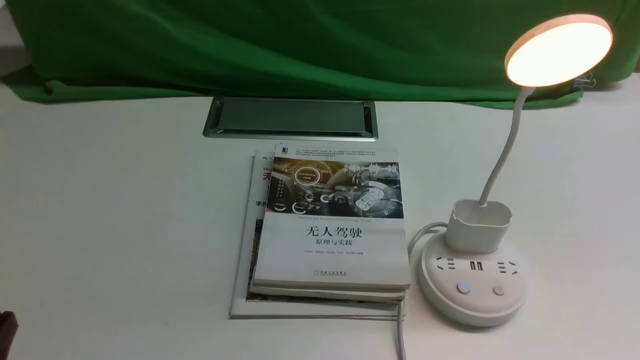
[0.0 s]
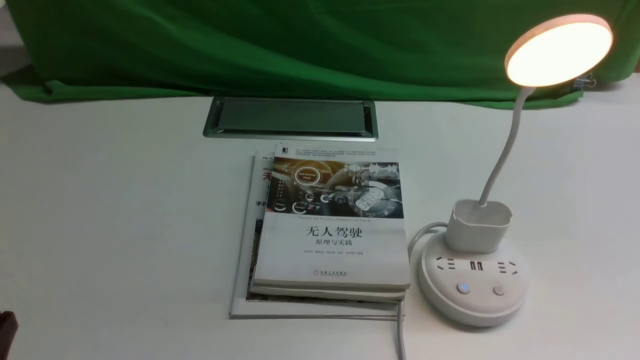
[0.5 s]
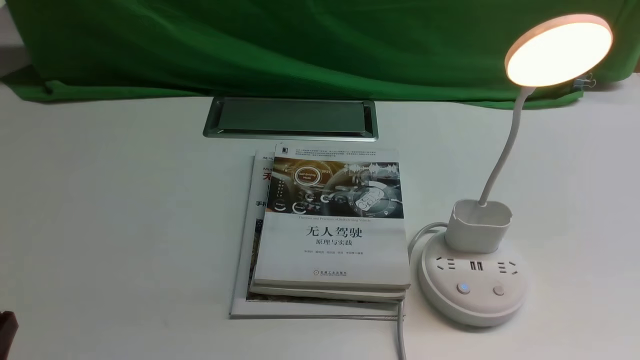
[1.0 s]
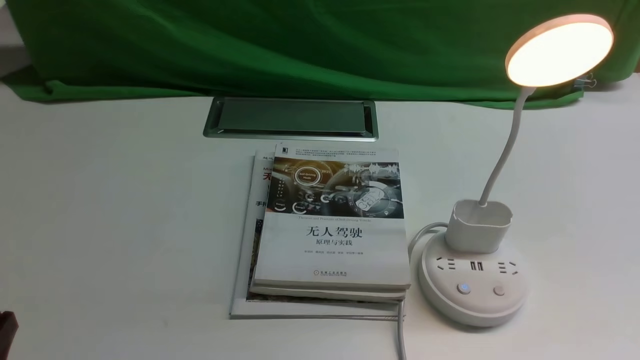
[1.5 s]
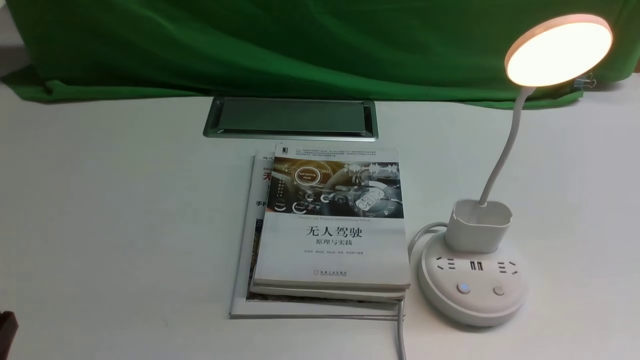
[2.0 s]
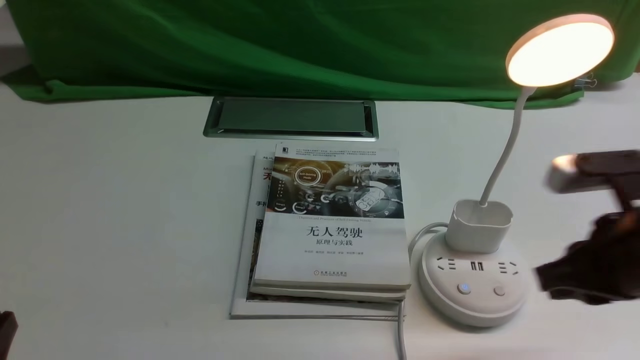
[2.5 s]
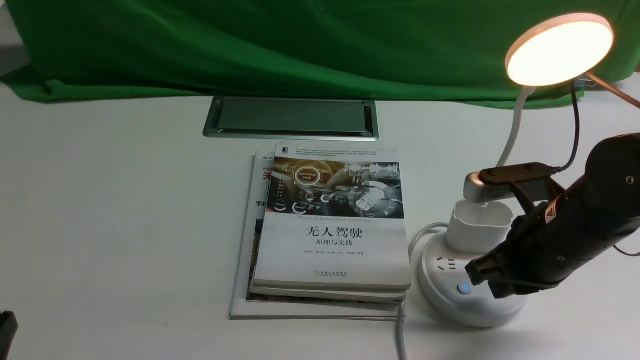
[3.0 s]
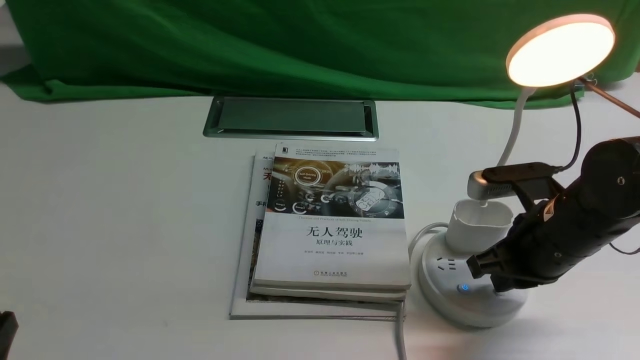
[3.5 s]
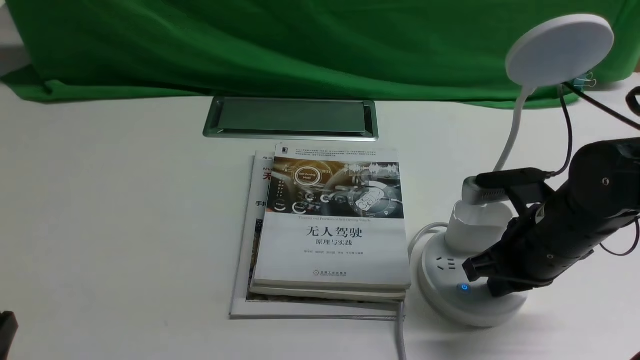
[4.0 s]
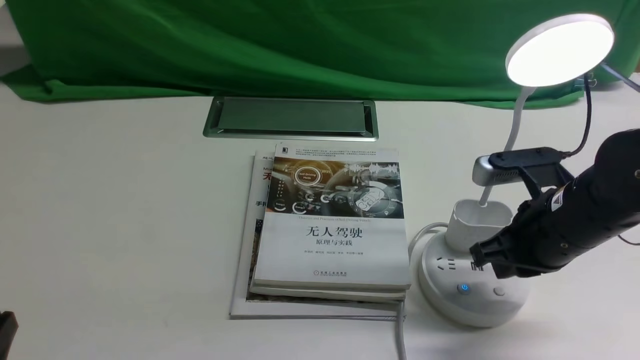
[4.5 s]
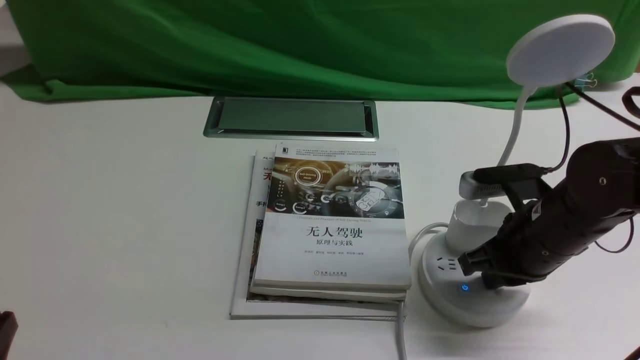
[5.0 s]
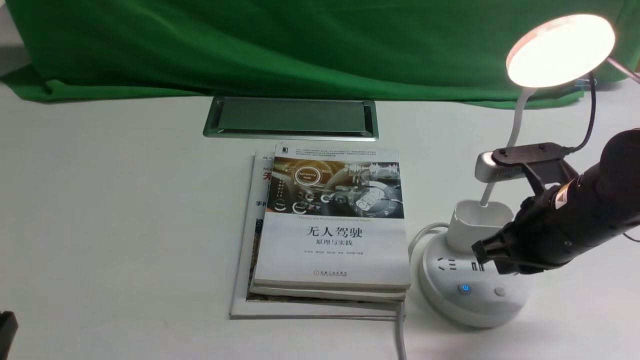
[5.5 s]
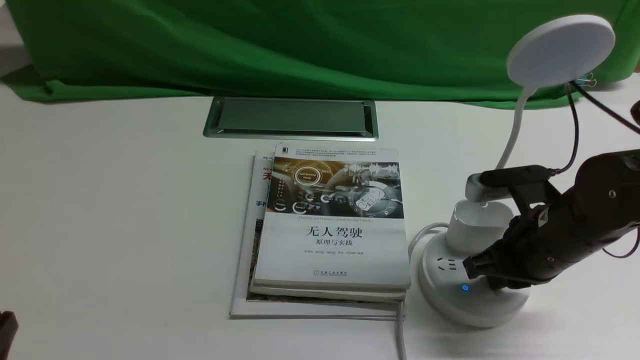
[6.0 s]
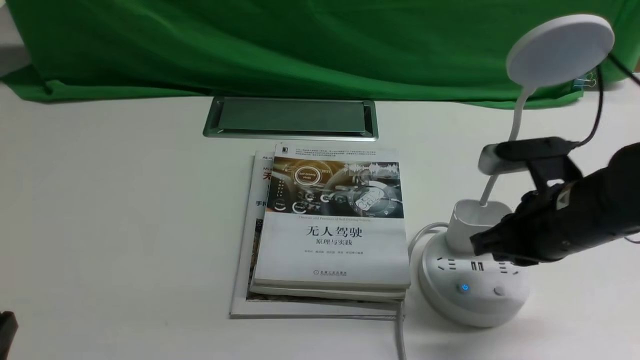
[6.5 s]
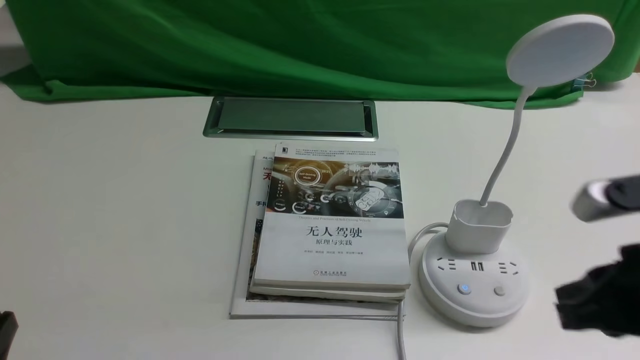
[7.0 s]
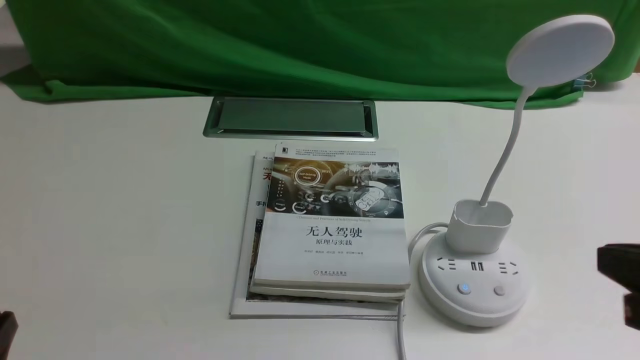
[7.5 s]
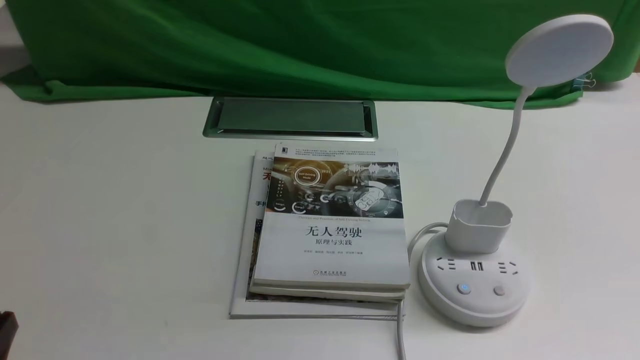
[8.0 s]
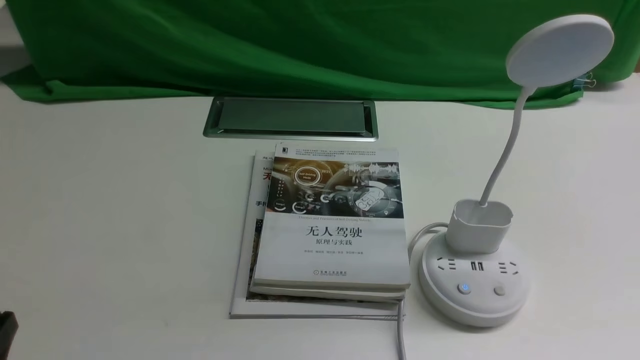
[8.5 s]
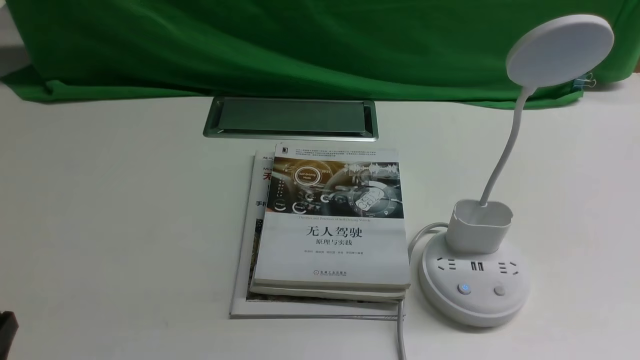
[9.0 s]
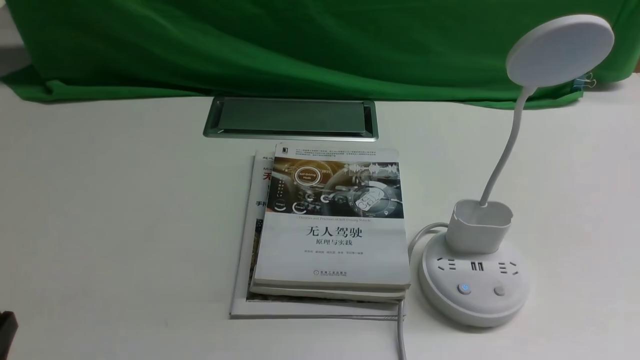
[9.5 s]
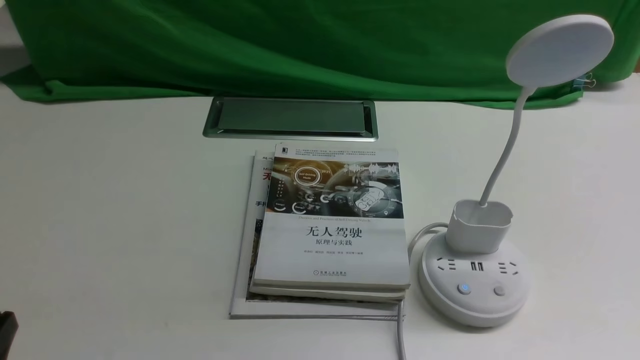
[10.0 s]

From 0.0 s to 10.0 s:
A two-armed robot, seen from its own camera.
Task of the whole recording: turn off the desk lamp on the white desktop by hand.
Step, from 0.0 s to 6.0 s: use the right arm to press the button switch on the lamp holder.
From 2.0 s to 4.0 s: The right gripper moves forward, downward and to the left, approximately 25 cm.
From 4.0 s to 6.0 s: The grippers move only a little.
From 6.0 s to 8.0 s: The right gripper heads backward and to the right, covering some 25 cm, and opens, then closes once more.
